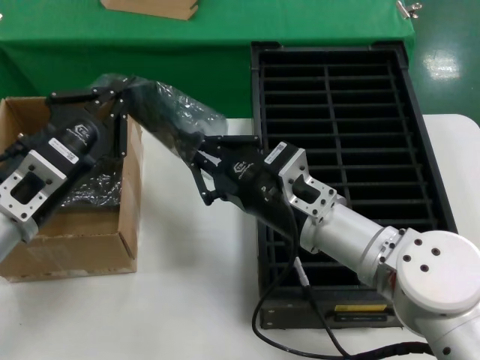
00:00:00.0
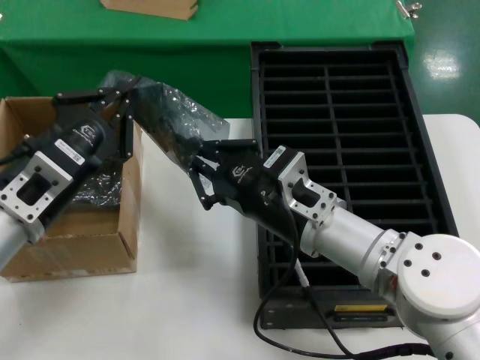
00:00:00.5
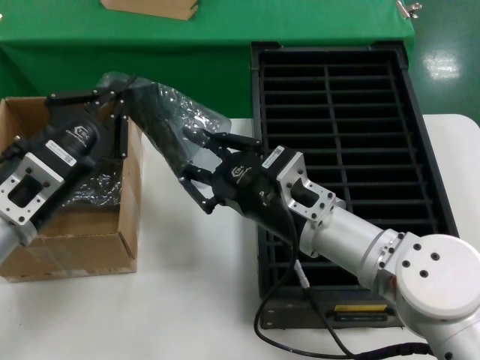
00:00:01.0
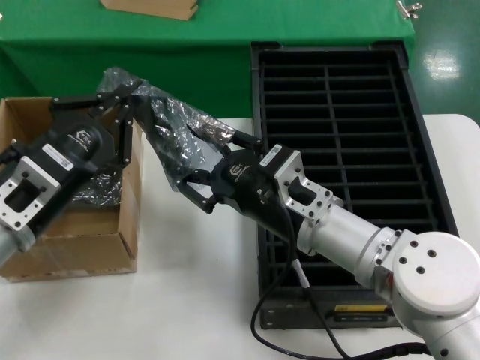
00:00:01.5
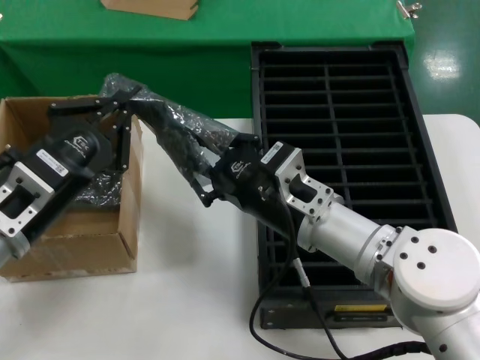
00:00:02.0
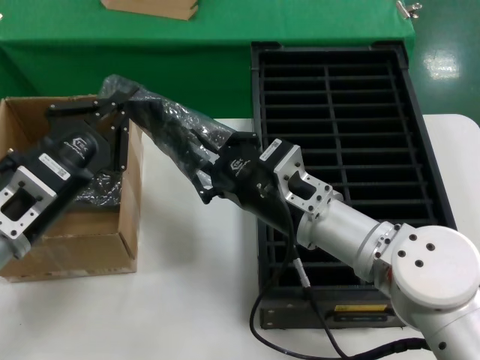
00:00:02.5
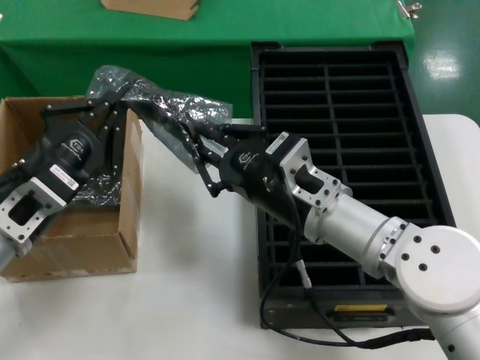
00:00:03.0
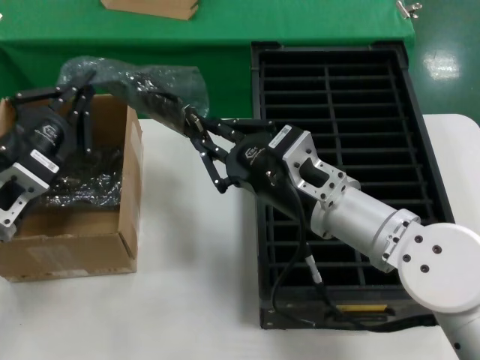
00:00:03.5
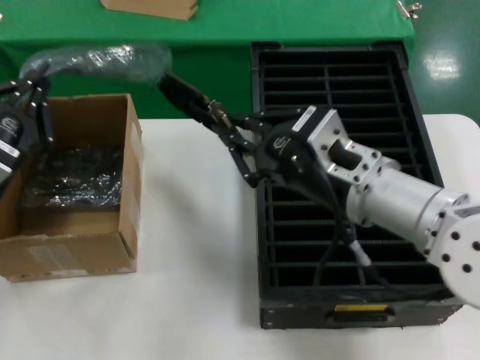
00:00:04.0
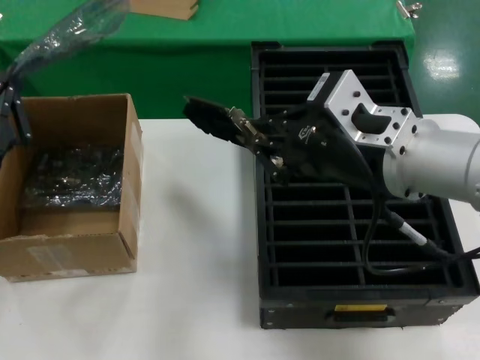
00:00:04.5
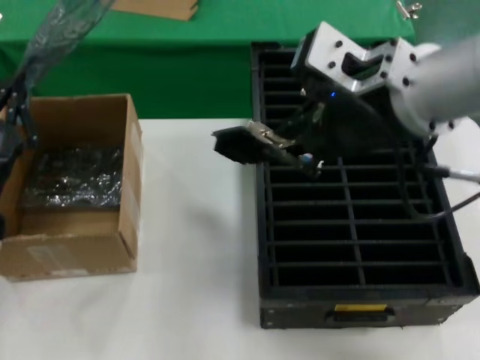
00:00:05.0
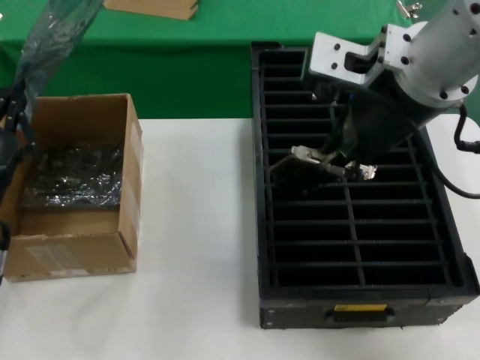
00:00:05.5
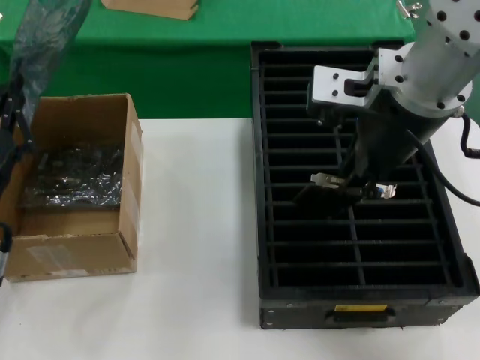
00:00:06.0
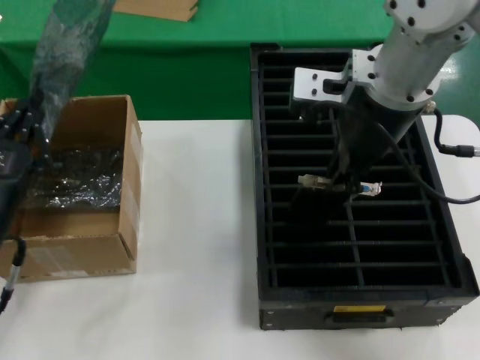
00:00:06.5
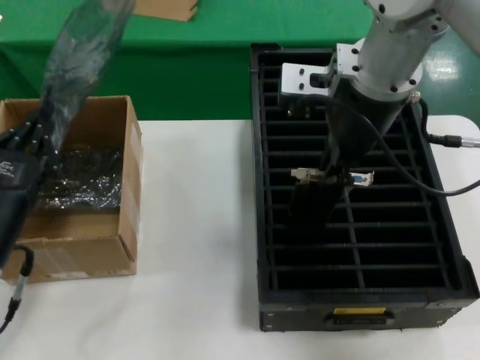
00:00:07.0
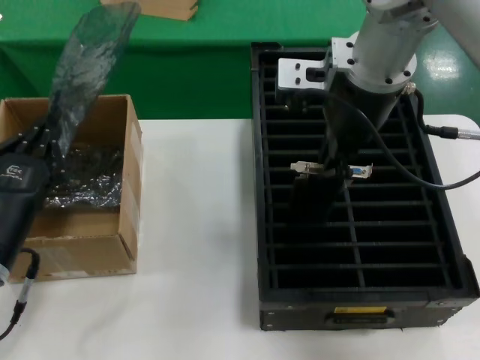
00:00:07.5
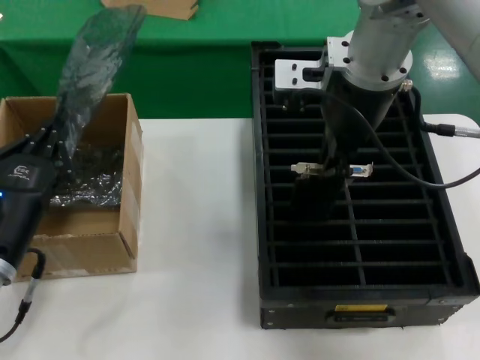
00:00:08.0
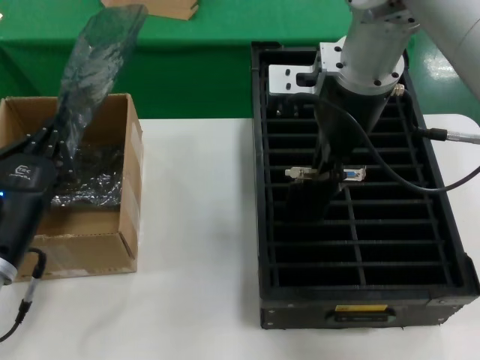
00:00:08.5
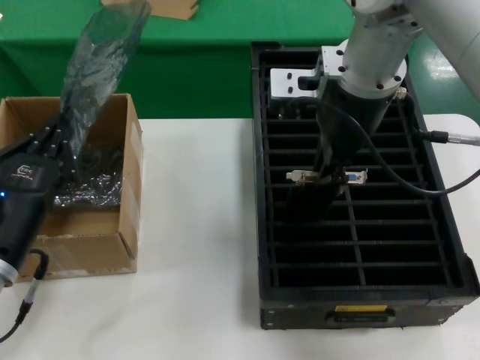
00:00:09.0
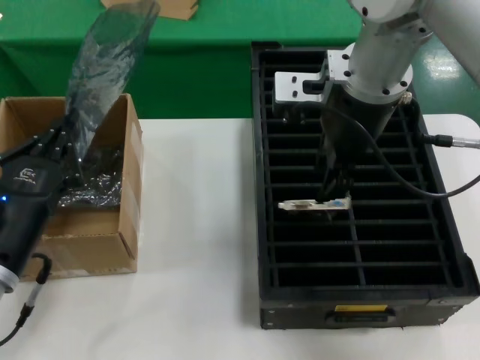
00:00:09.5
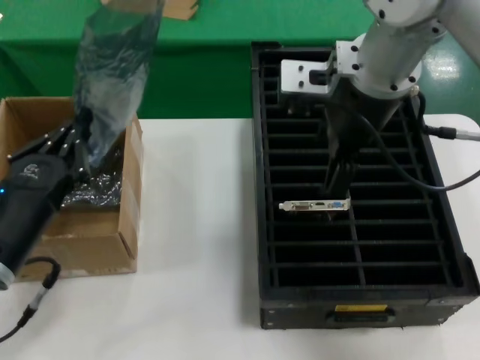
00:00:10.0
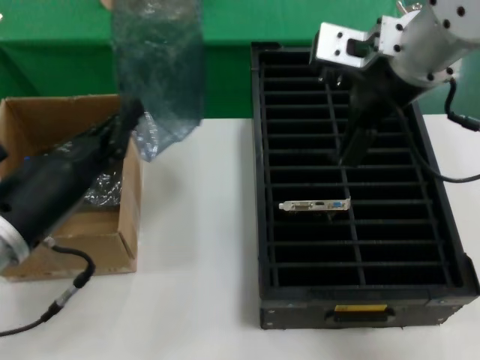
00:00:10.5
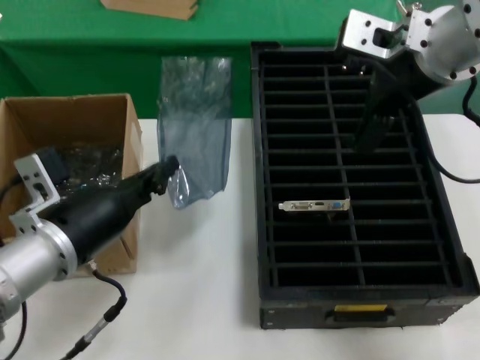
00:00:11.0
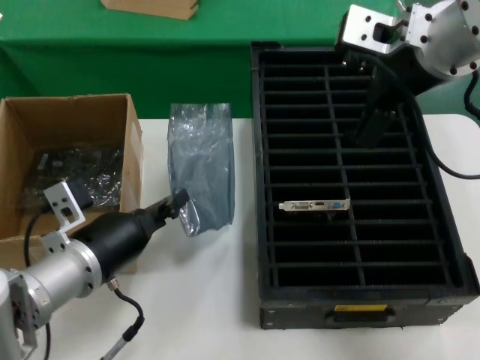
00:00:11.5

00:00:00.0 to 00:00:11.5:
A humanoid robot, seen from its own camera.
Task of the whole recording: take out graphics card from box remove packaging put into black container.
Step, 00:00:00.0 to 00:00:04.0: Take out the hard disk of the bag.
Step, 00:00:04.5 to 00:00:09.5: Place the hard disk in the hard disk enclosure.
00:00:00.0 to 00:00:02.0: The hands make only small movements.
00:00:02.0 to 00:00:04.0: The right hand moves upward, about 5 cm. Meanwhile the left hand is displaced to the left and forward by roughly 10 cm.
00:00:04.0 to 00:00:06.0: The right hand travels upward by about 20 cm.
00:00:06.0 to 00:00:07.5: The right hand goes some 5 cm forward.
00:00:07.5 to 00:00:09.5: The hands move only a little.
00:00:09.5 to 00:00:11.5: The two hands go about 5 cm to the right. The left hand reaches approximately 10 cm upward, then returns.

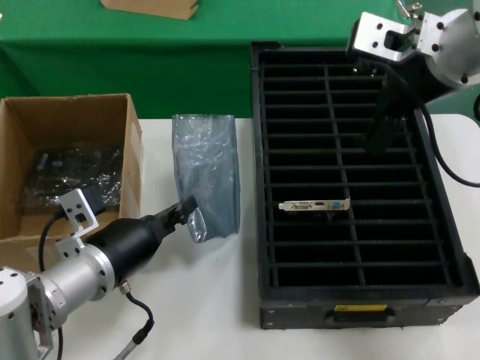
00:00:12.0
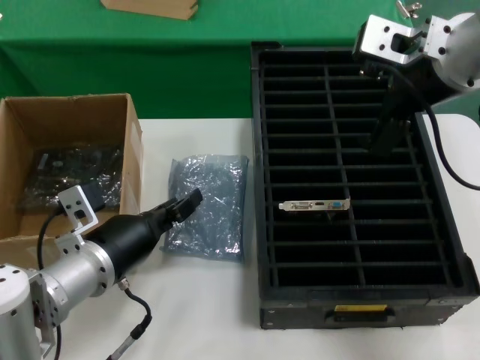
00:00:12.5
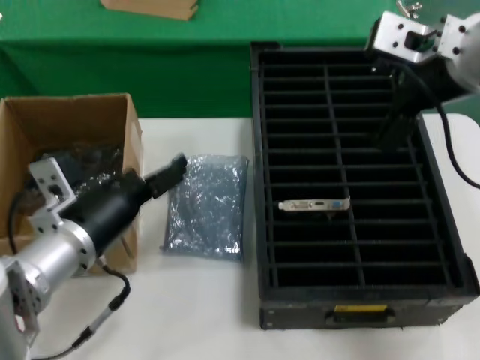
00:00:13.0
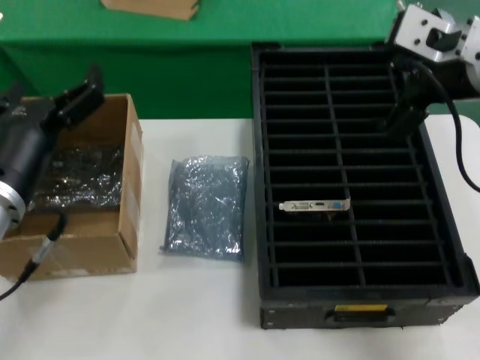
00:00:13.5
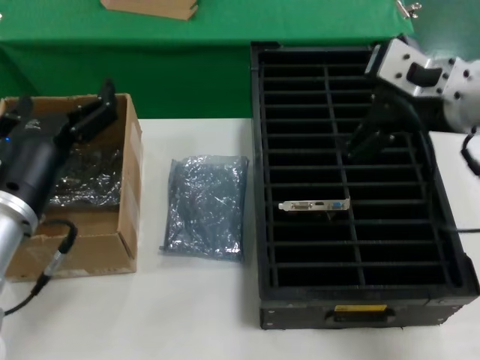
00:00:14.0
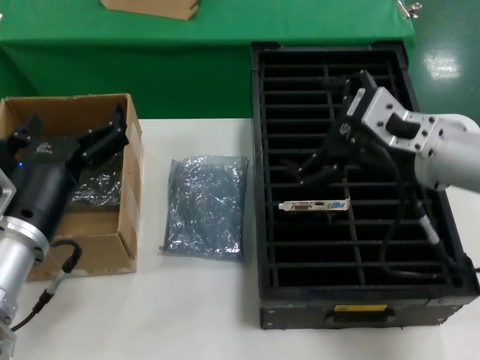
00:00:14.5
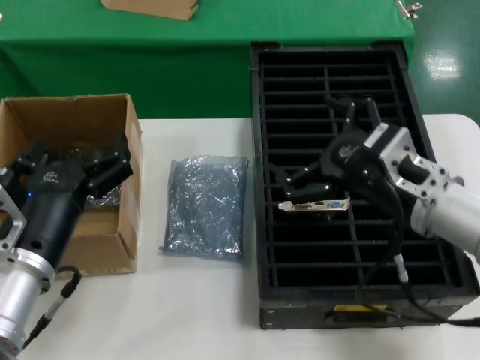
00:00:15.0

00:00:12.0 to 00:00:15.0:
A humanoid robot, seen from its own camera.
Task of the whole recording: take out graphics card from box remove packaging put into black container.
00:00:12.0 to 00:00:13.5: The left hand goes roughly 10 cm upward.
00:00:13.5 to 00:00:15.0: The left hand heads downward, covering approximately 5 cm. Meanwhile the right hand moves downward, roughly 20 cm.
